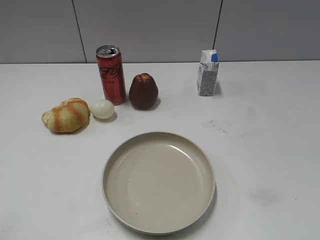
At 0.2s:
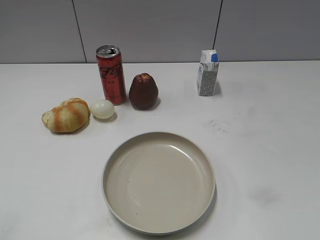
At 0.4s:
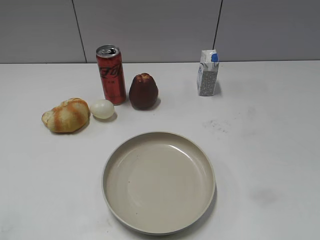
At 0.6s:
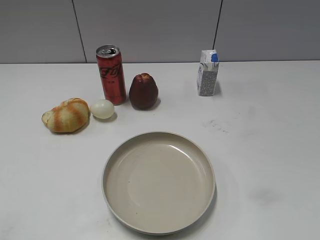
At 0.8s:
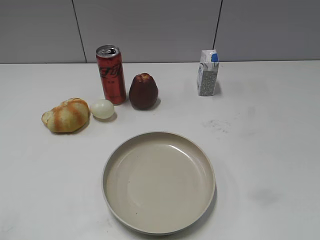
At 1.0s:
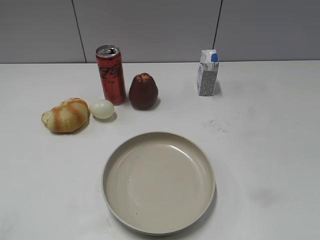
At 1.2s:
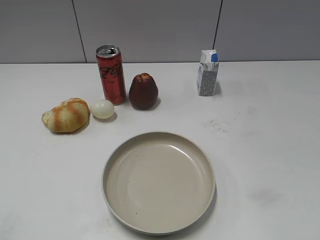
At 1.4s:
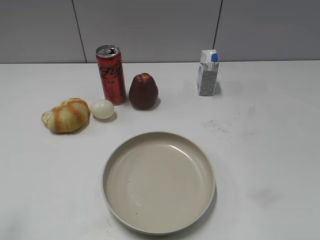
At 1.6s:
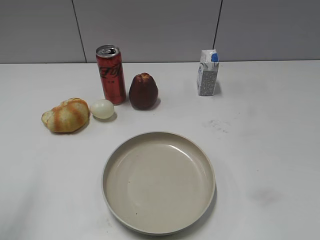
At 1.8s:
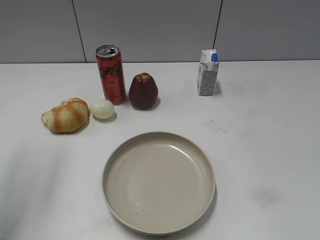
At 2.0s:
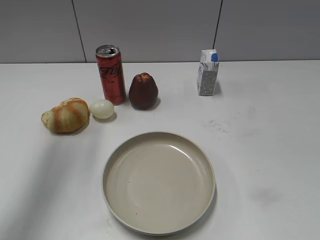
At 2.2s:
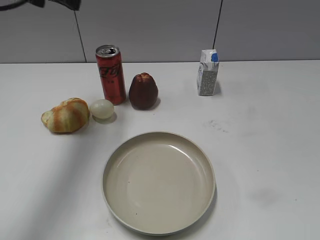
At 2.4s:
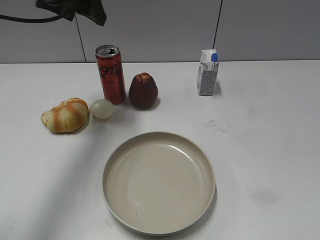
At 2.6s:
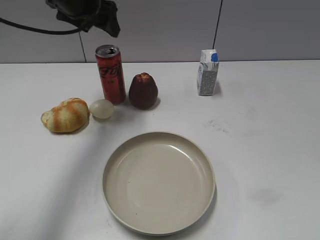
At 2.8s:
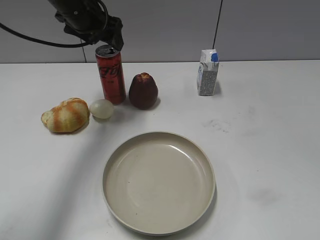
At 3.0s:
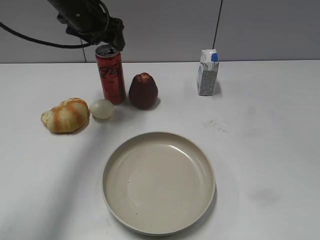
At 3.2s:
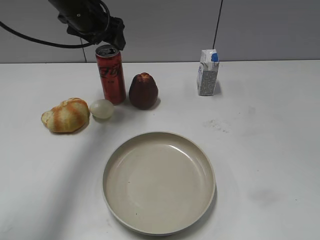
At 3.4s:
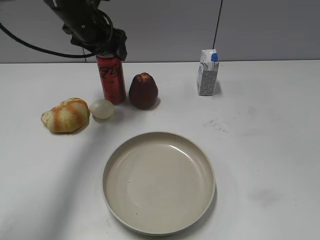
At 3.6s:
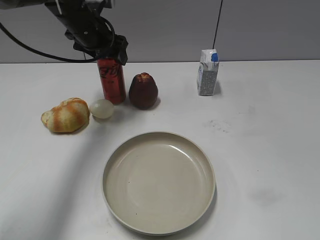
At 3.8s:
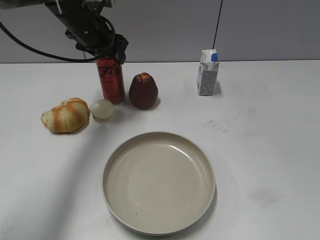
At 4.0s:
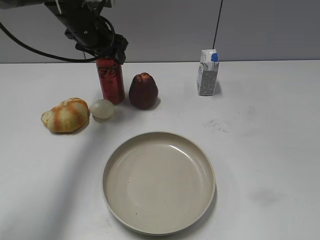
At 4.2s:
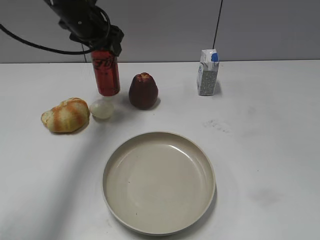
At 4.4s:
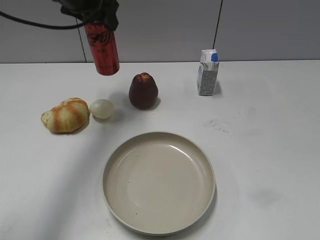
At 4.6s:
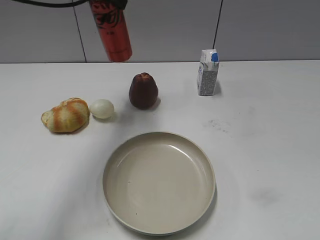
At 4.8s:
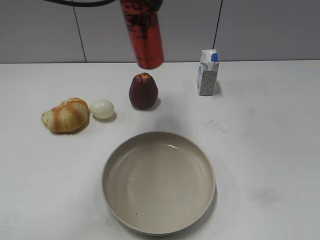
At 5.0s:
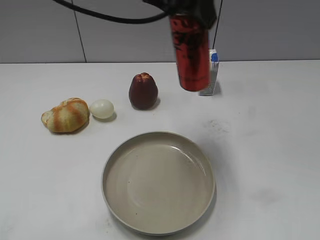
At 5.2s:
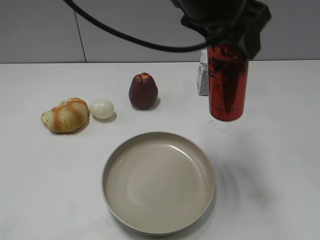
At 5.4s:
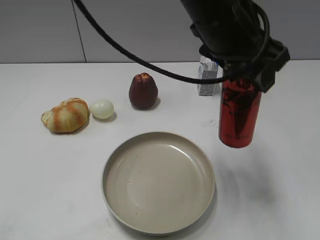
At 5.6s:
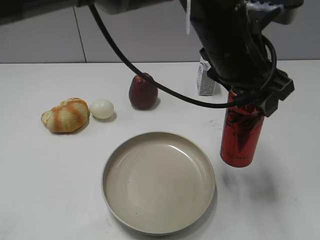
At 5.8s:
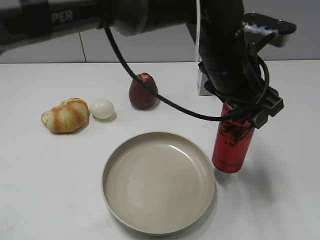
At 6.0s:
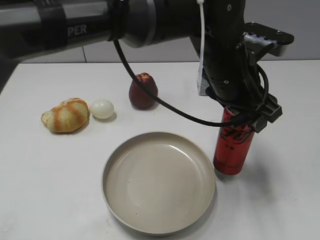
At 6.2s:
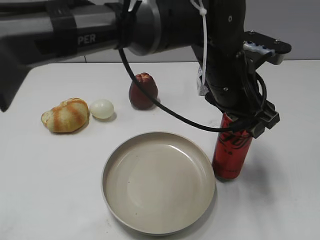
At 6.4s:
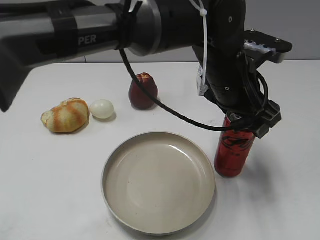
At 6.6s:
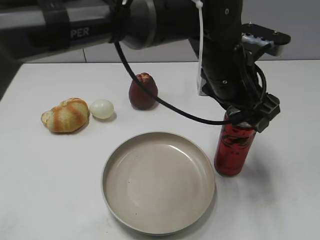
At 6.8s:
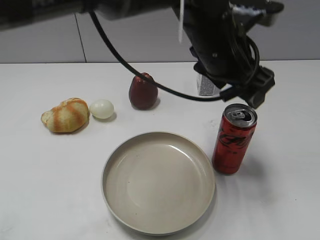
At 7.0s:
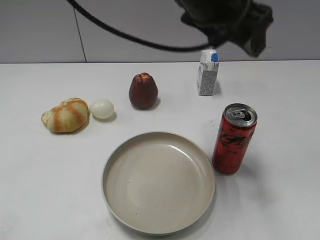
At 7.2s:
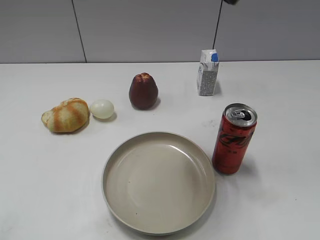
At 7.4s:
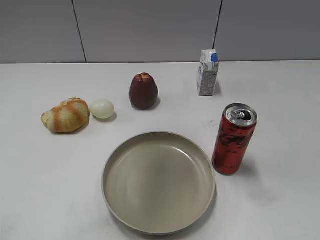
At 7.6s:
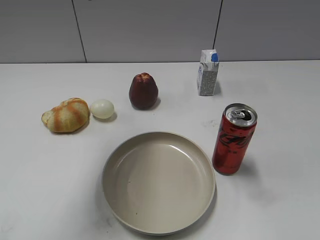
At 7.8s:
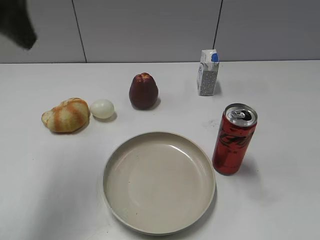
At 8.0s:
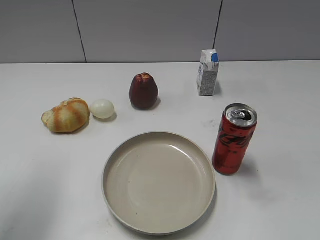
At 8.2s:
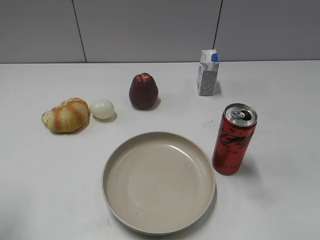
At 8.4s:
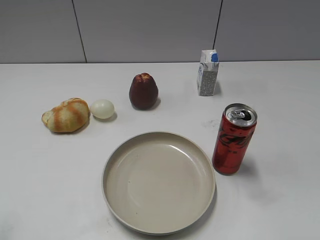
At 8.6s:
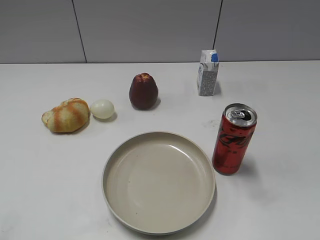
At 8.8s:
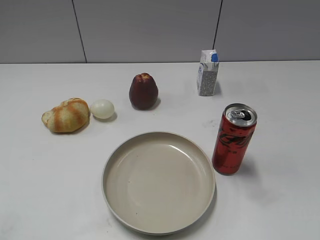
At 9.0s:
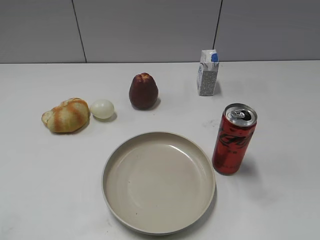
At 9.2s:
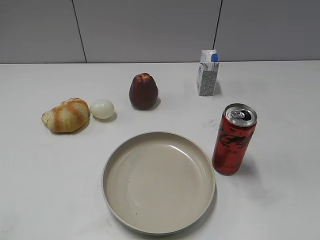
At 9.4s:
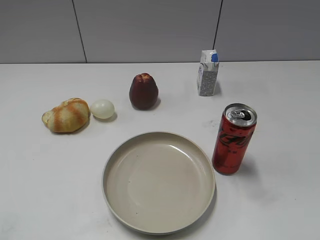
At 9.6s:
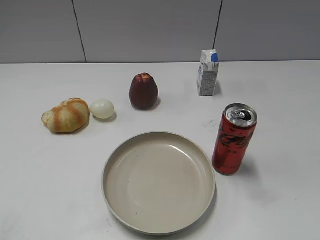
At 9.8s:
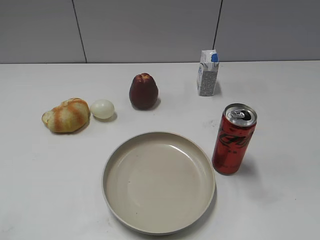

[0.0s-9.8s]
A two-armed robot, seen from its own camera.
Step, 1.0s to 4.0s: Grasp the cola with left gripper.
Step, 4.2s to 6.8s: Place the cola on the table with left gripper.
1.4s to 2.8s: The left gripper shifts approximately 40 cm forward and to the right, and opens.
2.8s to 4.2s: The left gripper closes up.
4.2s to 5.6s: The left gripper travels to the right and backward by roughly 30 cm.
5.6s to 7.0s: The left gripper shifts about 5 cm upward, and opens up.
7.0s to 8.4s: The left gripper goes some 40 cm to the left and backward, and closes.
